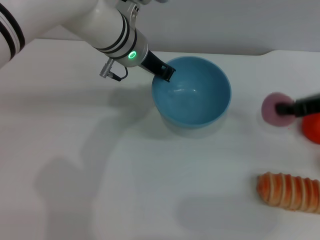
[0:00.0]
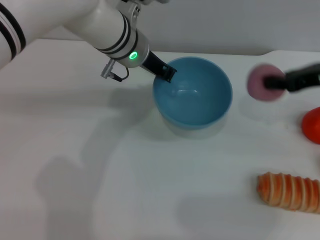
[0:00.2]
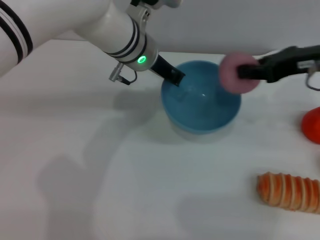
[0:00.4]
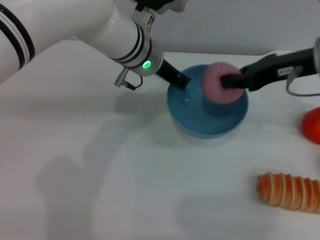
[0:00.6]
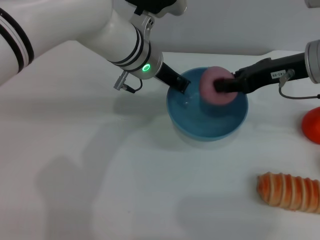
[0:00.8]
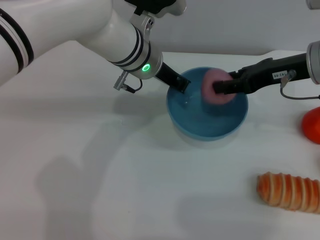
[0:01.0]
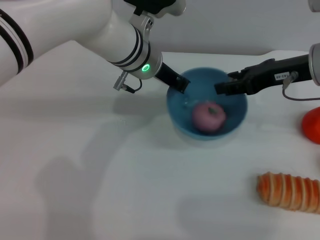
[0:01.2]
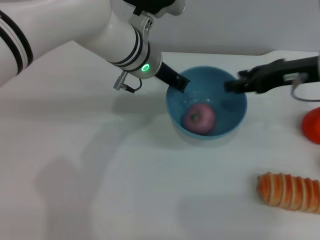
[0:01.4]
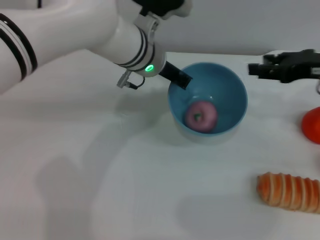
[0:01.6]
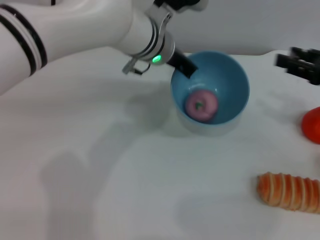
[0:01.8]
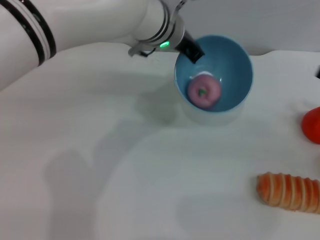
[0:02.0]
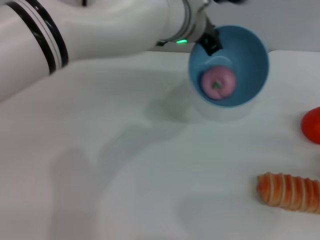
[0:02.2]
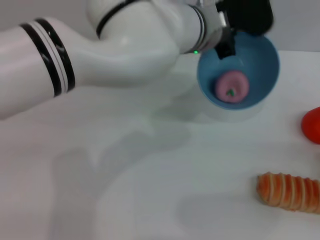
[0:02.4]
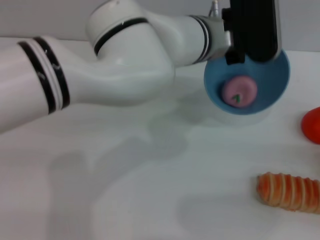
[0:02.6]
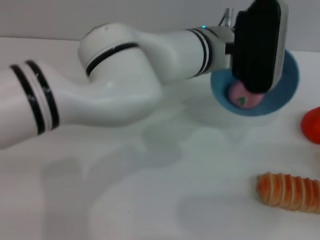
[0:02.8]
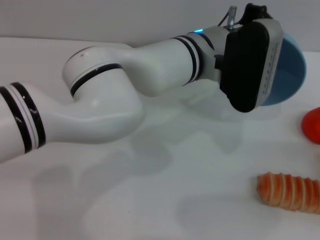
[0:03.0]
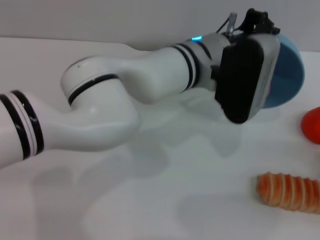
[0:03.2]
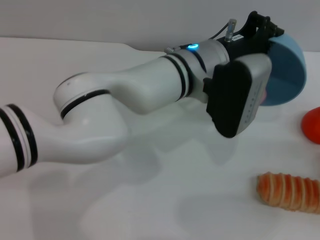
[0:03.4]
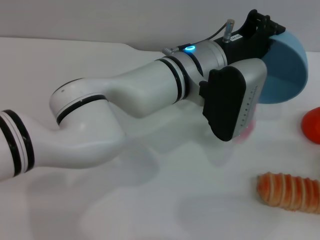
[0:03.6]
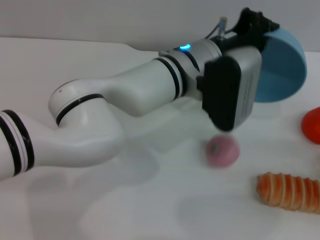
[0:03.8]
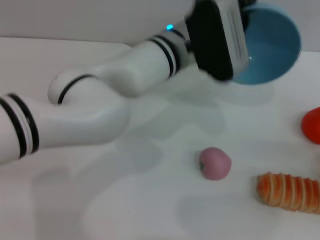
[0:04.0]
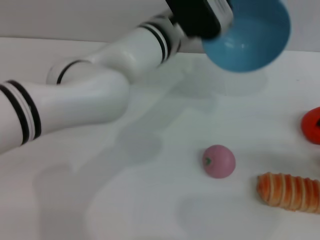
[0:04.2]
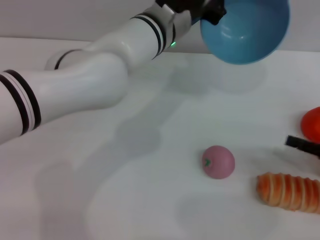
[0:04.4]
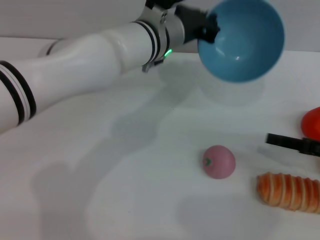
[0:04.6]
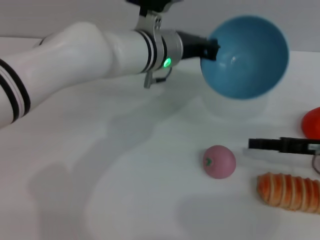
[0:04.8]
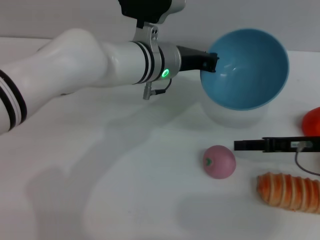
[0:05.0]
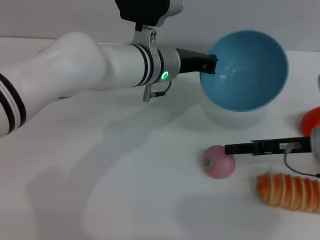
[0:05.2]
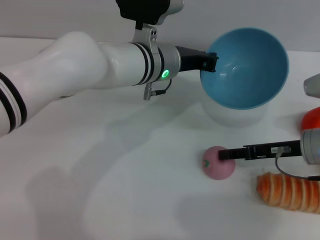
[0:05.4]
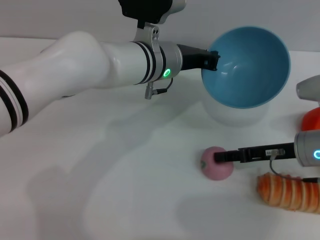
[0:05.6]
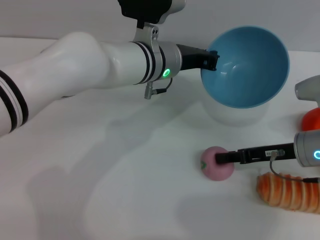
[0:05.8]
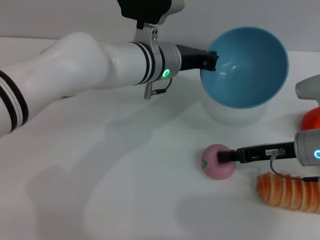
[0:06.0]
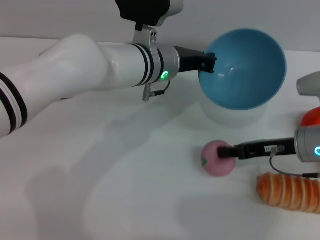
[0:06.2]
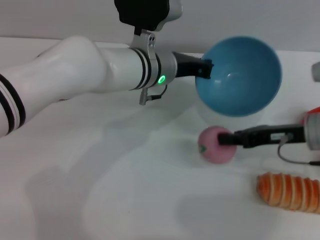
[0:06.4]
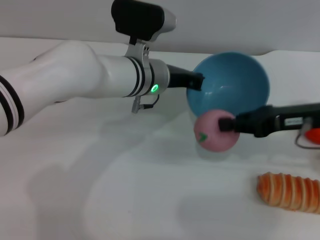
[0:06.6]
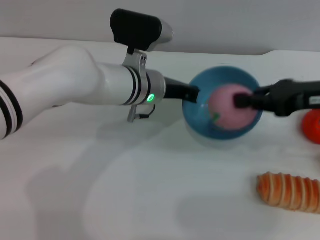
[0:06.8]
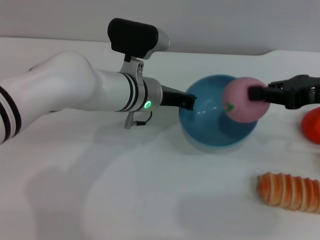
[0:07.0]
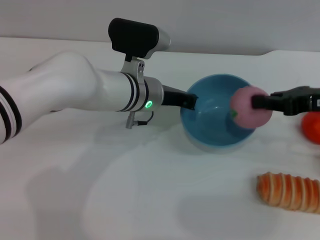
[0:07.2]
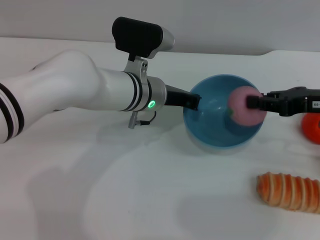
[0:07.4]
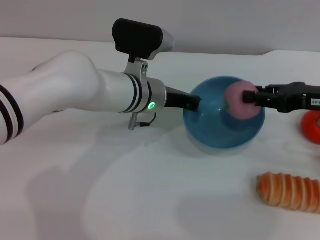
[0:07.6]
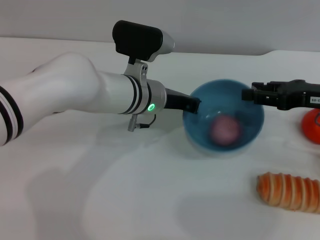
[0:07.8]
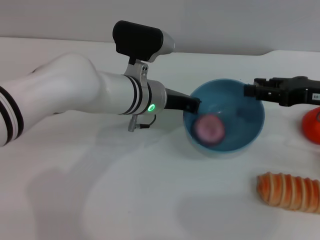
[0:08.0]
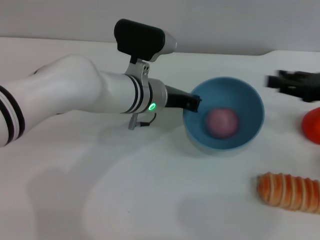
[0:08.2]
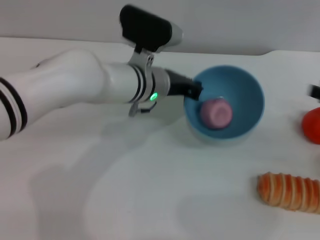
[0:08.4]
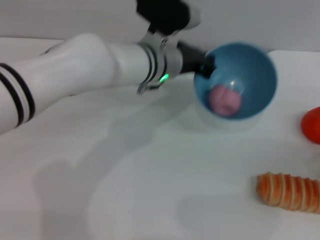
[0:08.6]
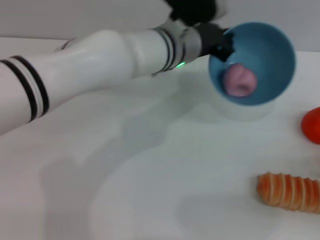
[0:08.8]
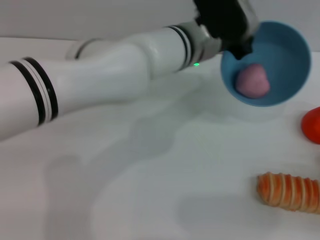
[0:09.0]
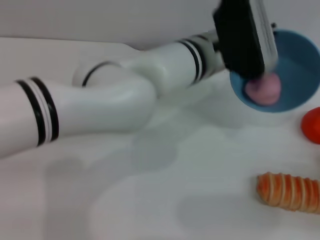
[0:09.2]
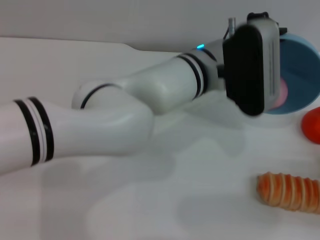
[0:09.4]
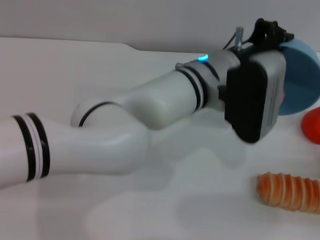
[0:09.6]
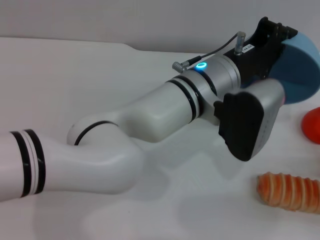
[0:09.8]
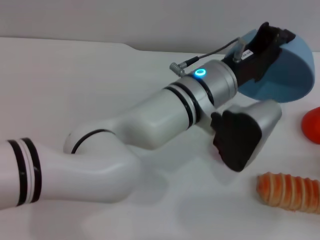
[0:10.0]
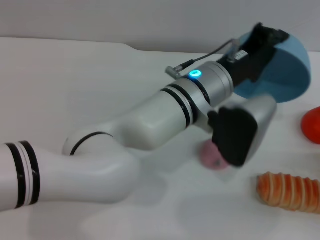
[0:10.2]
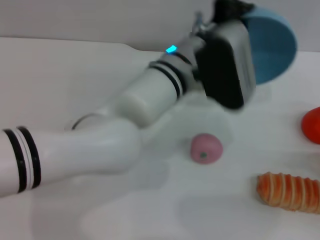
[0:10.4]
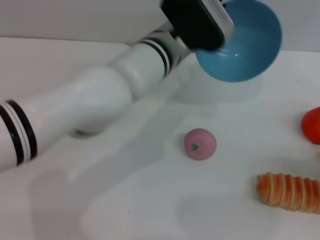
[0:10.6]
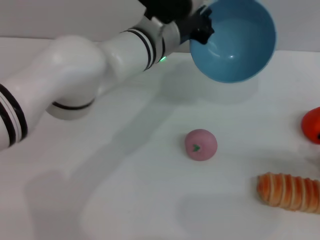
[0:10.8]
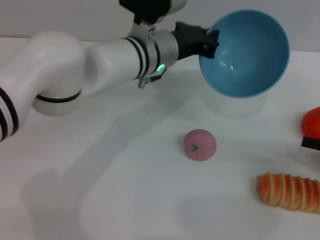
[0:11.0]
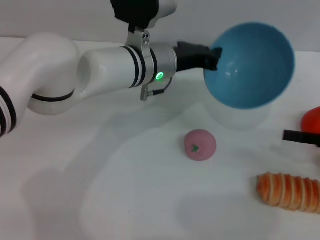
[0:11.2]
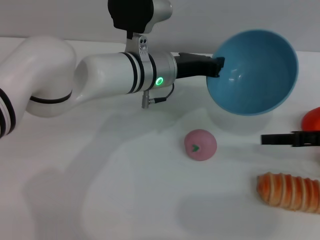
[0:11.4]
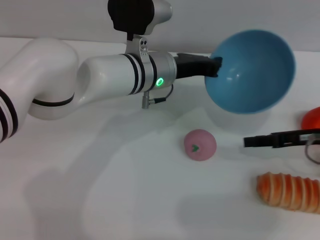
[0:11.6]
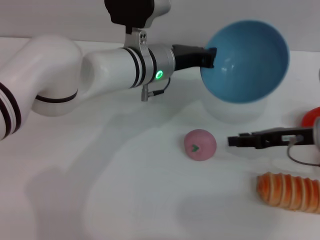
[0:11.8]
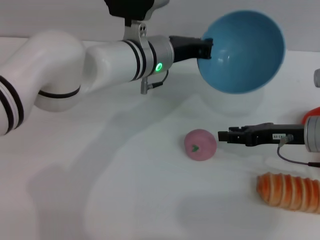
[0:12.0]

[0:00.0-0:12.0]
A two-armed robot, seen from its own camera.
Task of the whole recording: put the peach into the blue bowl and pour it out repeatedly.
Step, 0:00.0 to 0:01.0: Place the peach into the bowl.
Step, 0:01.2 to 0:03.6: Pour the peach out of bowl.
Step, 0:03.8 to 0:06.4: Pick up the peach with the right gripper.
Step, 0:06.6 to 0:08.0: Place the peach into the bowl.
Step, 0:08.2 to 0:10.4: Pour the peach out of bowl.
0:00.0 to 0:01.6: The right gripper goes to the left and returns, roughly 10 cm each way, and opens up.
0:01.6 to 0:03.0: The left gripper is displaced to the right by some 5 cm, while the right gripper is displaced backward, downward and to the right by roughly 20 cm.
0:03.0 to 0:04.4: The right gripper ends up about 5 cm from where it was, while the left gripper shifts by some 5 cm.
0:04.4 to 0:06.0: The right gripper shifts about 15 cm to the left and forward.
0:06.0 to 0:07.6: The right gripper is displaced upward by approximately 10 cm, and closes.
0:07.6 to 0:09.0: The left gripper heads to the right and upward, covering approximately 10 cm. The right gripper goes about 20 cm backward, to the right and downward, and opens its fingers.
0:10.4 to 0:12.0: The left gripper travels forward and to the left by some 10 cm, while the right gripper heads to the left and forward, covering some 20 cm.

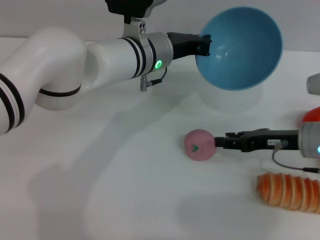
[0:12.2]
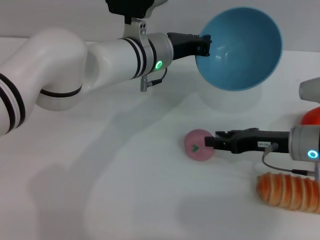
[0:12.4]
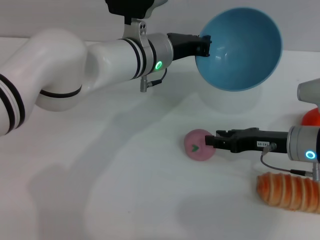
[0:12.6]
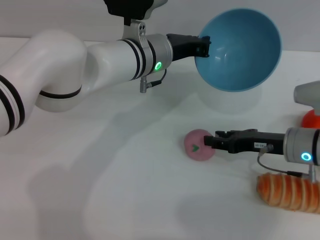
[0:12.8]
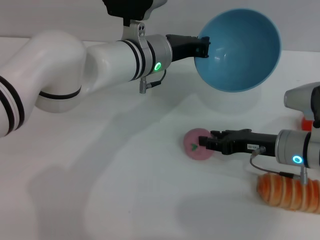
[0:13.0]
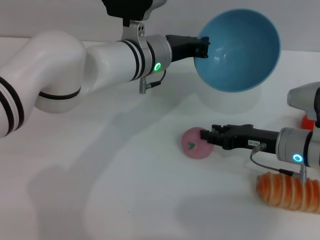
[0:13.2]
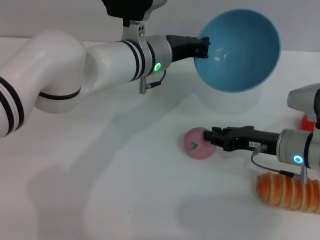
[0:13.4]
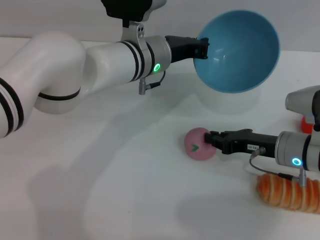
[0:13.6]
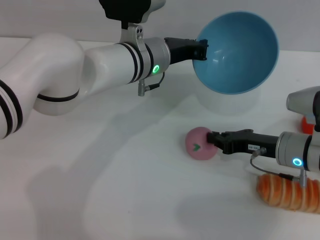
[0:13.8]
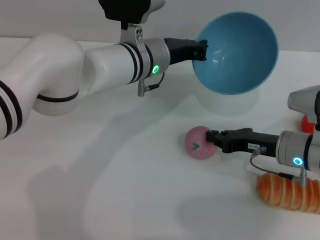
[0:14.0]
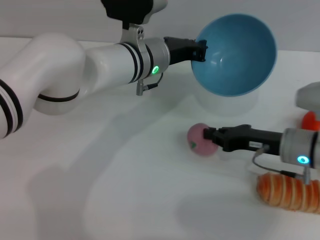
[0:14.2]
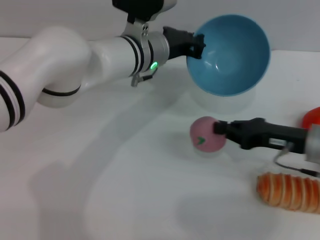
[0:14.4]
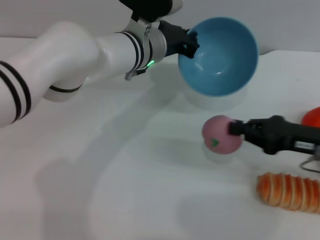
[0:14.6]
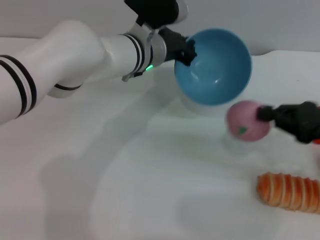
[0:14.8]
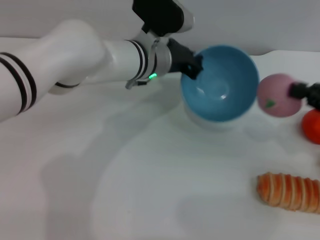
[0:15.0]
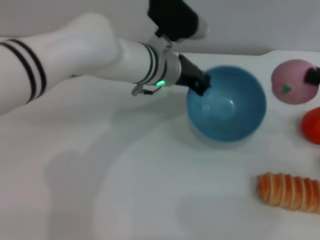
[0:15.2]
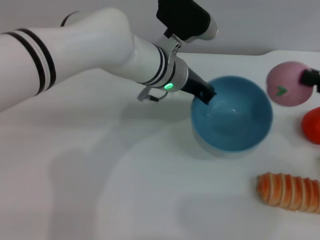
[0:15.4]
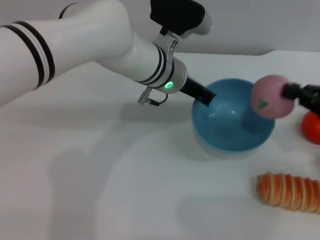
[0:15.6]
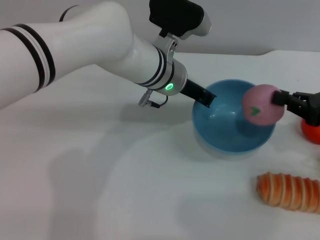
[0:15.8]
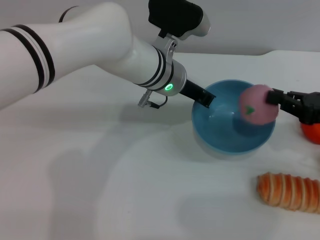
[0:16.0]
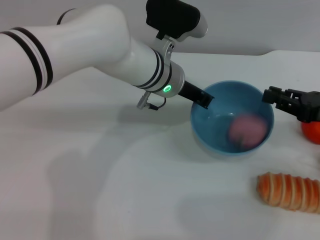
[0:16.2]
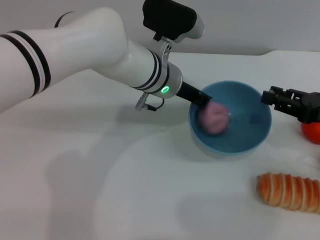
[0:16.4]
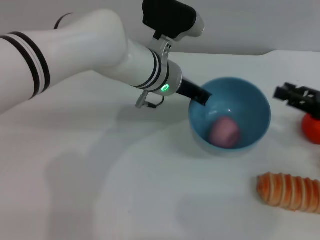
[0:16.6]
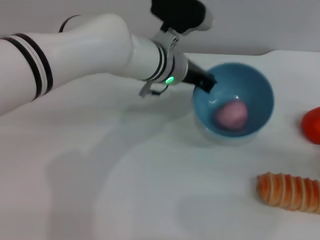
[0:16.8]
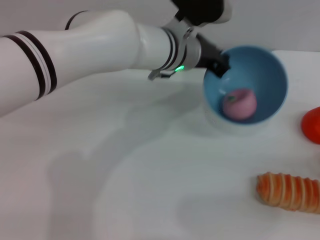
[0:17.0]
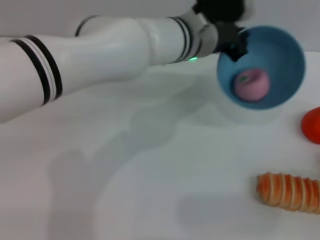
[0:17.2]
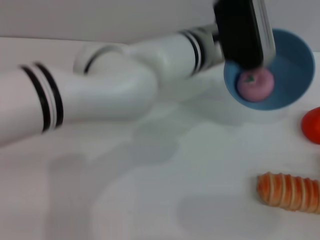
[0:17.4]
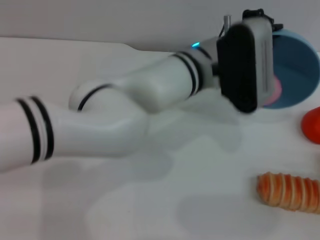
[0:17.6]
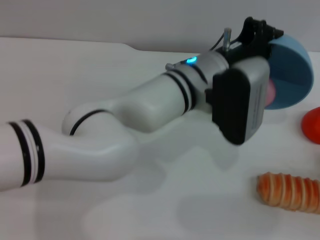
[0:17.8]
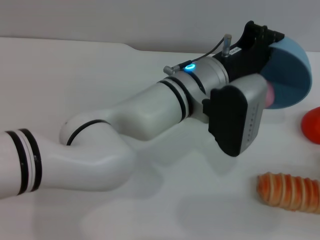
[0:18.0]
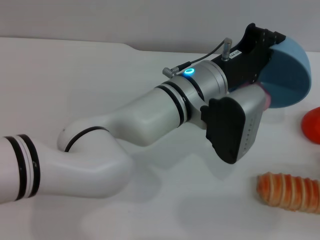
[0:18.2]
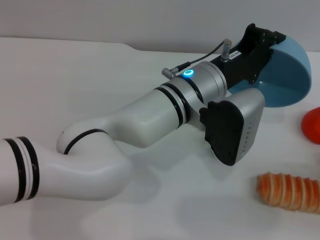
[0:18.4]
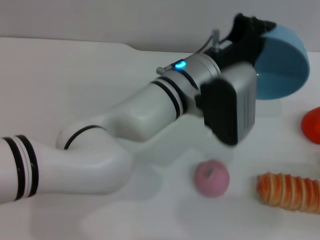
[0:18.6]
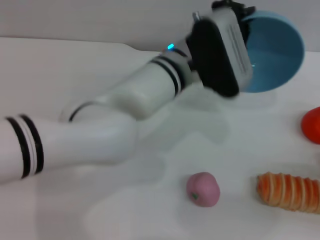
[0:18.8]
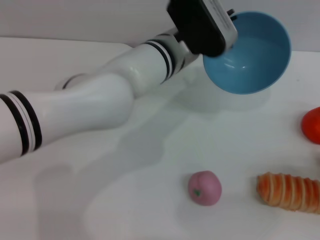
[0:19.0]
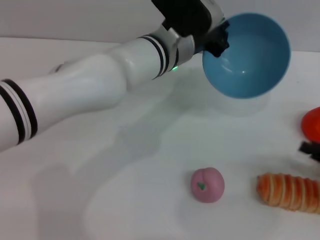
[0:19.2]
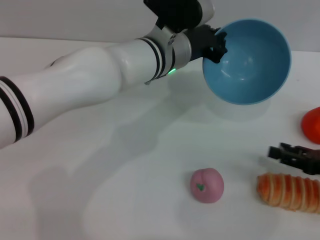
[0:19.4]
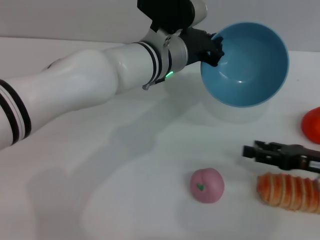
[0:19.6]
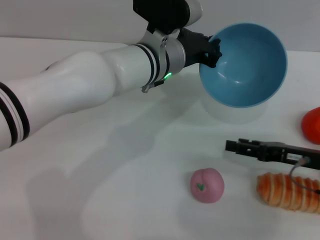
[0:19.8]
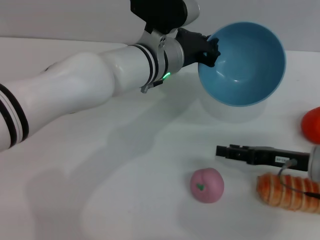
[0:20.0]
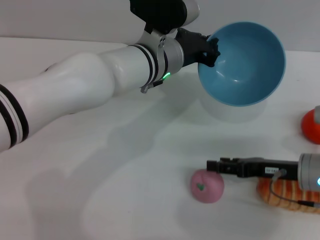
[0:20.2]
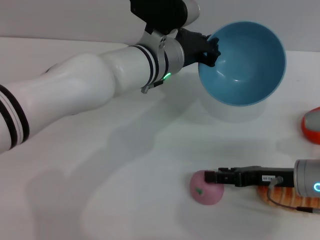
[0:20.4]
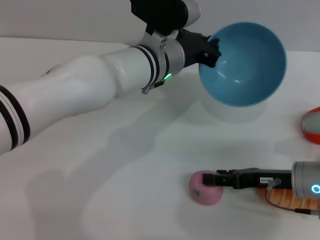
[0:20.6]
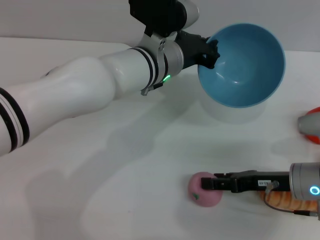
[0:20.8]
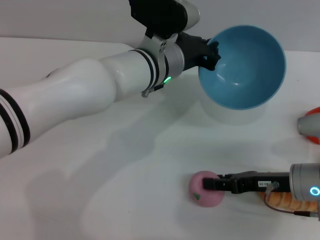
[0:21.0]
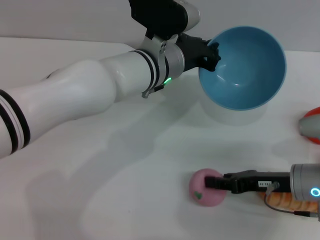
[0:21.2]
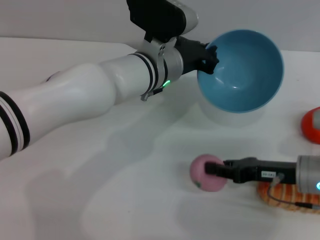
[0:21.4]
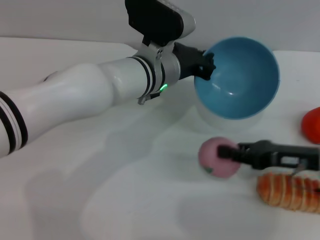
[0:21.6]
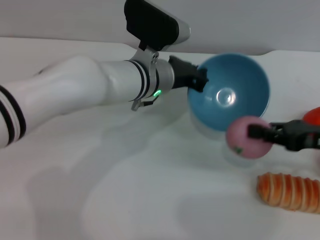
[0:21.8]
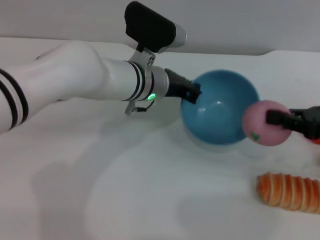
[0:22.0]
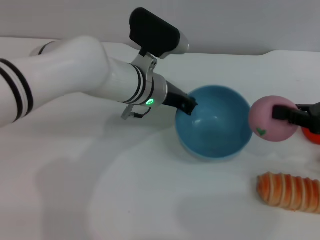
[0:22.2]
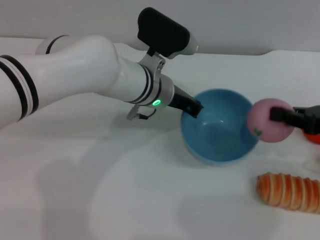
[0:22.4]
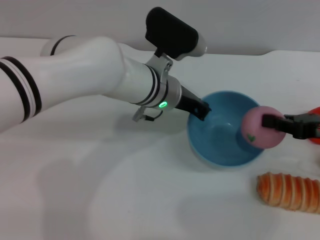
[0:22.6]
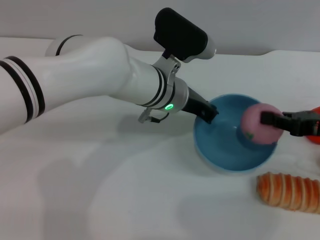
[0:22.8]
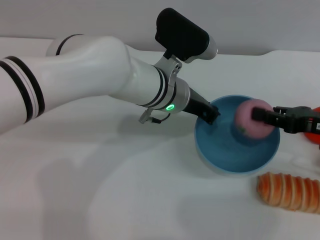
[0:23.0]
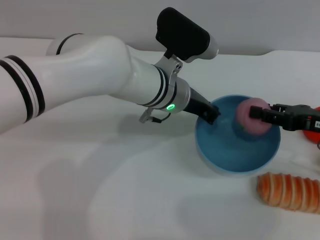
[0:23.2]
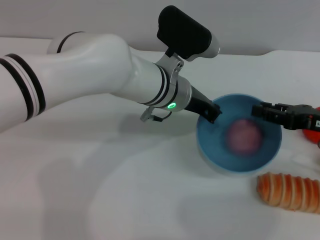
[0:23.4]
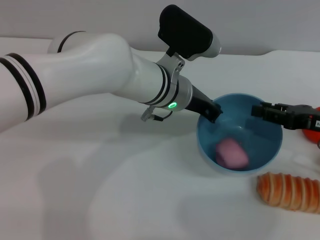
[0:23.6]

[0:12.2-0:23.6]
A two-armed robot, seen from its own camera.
Task of the whole recording: put the peach into the blue bowl and pour it out repeatedly.
Step, 0:12.2 to 0:14.4: Pick up the peach with the right gripper.
Step, 0:14.6 to 0:17.0: Place the peach into the bowl.
Step, 0:17.2 to 0:19.4: Pour the peach out of bowl.
Step, 0:19.6 to 0:21.6: Pick up the peach with the right gripper.
0:12.2 to 0:13.6: The grippers stay close to where they were, moving slightly.
0:13.6 to 0:15.0: The right gripper heads to the right and upward, covering some 15 cm, and closes up.
0:15.0 to 0:16.4: The right gripper opens.
0:16.4 to 0:17.8: The left gripper goes roughly 5 cm backward. The right gripper shifts roughly 20 cm backward, to the right and downward.
0:17.8 to 0:19.4: The right gripper is displaced forward and to the left by approximately 10 cm. The left gripper travels forward by about 5 cm.
0:19.4 to 0:20.8: The right gripper travels to the left by approximately 10 cm.
0:20.8 to 0:22.2: The right gripper moves upward and to the right, roughly 15 cm, and closes up.
0:22.2 to 0:23.6: The right gripper opens up.
